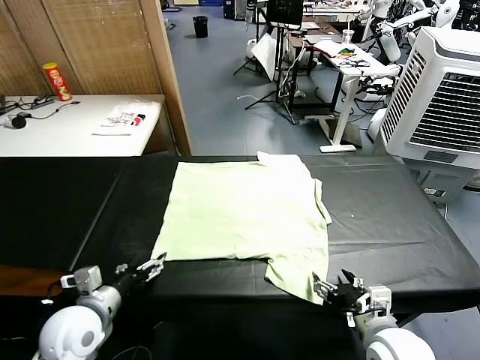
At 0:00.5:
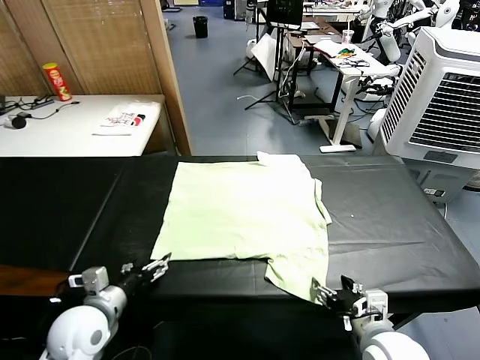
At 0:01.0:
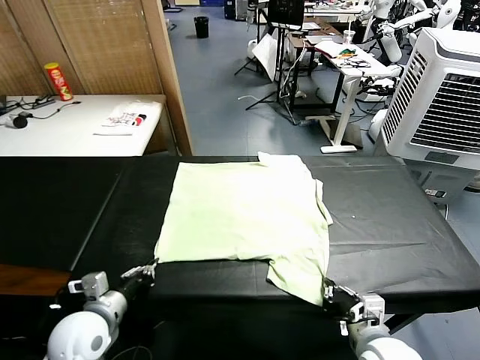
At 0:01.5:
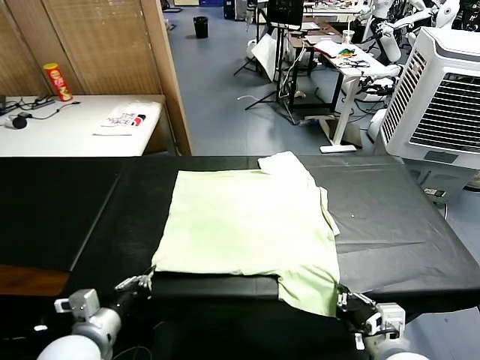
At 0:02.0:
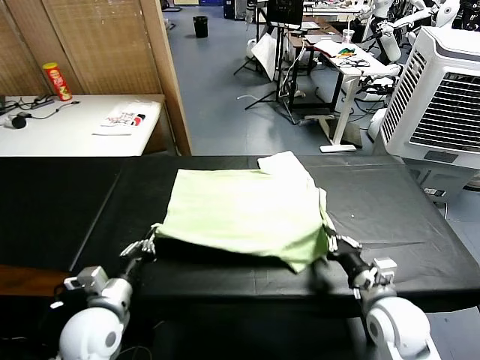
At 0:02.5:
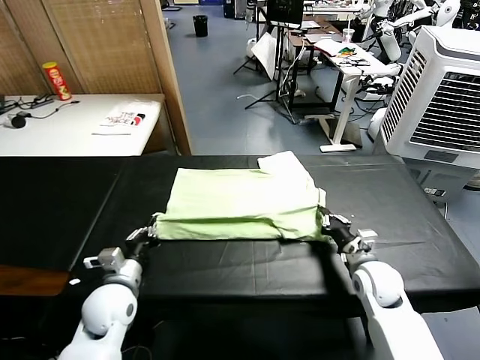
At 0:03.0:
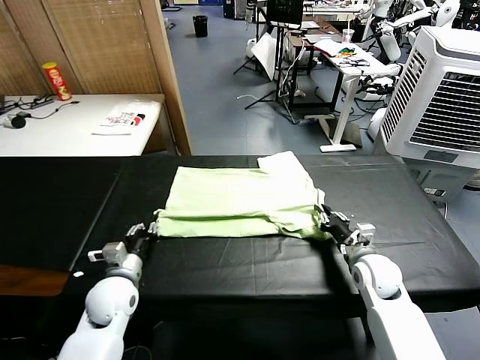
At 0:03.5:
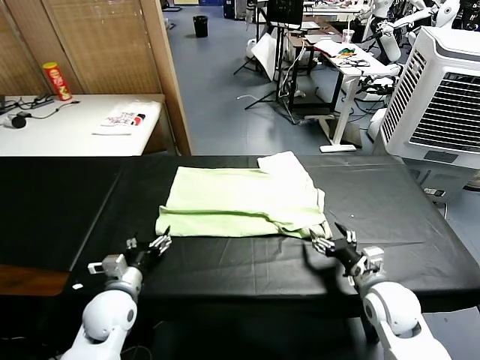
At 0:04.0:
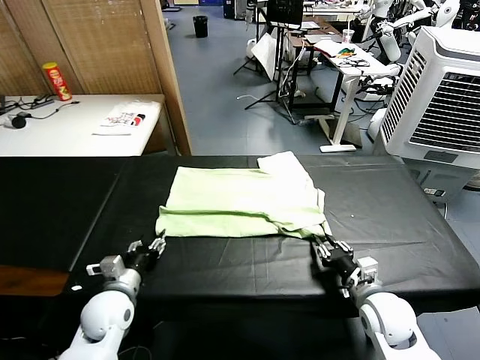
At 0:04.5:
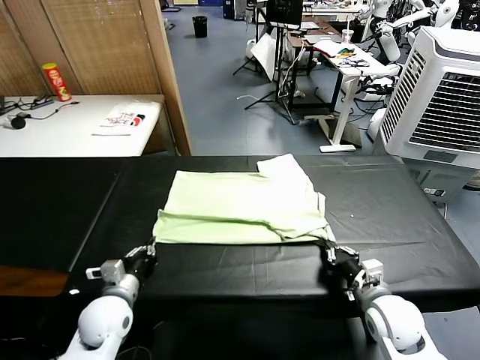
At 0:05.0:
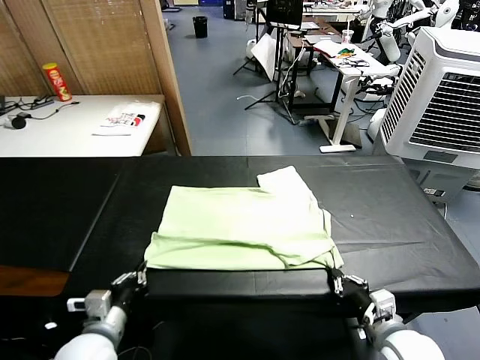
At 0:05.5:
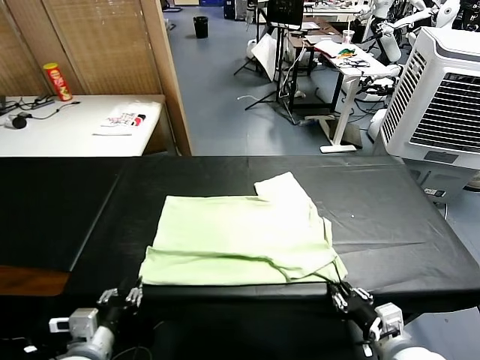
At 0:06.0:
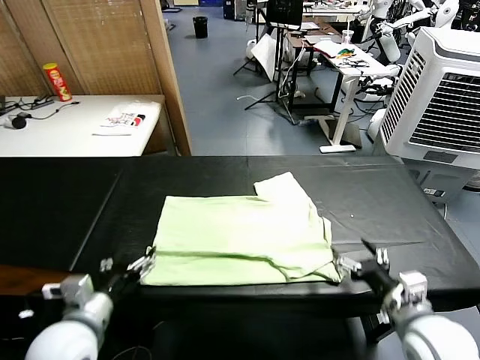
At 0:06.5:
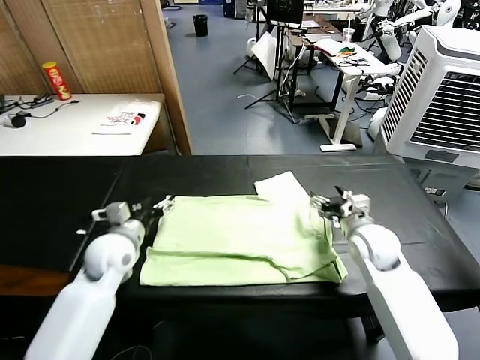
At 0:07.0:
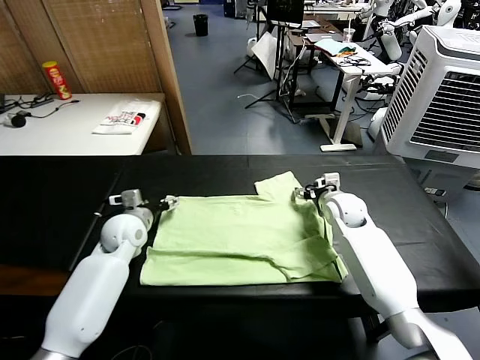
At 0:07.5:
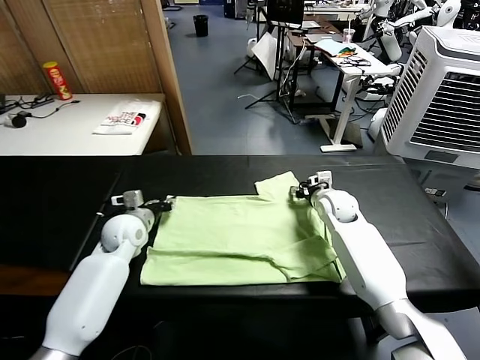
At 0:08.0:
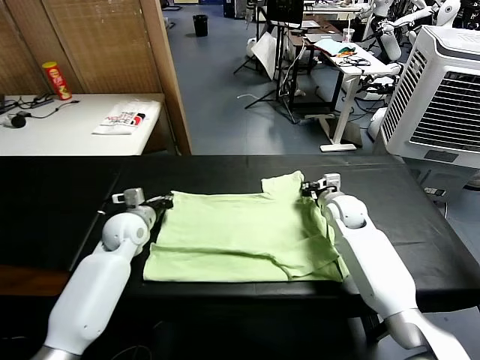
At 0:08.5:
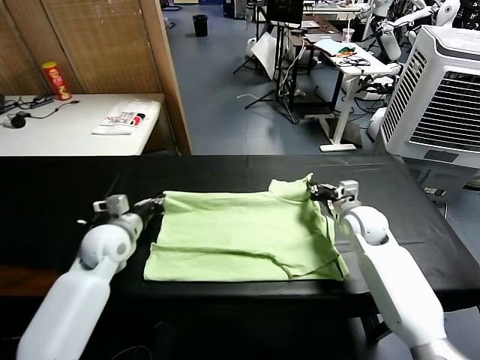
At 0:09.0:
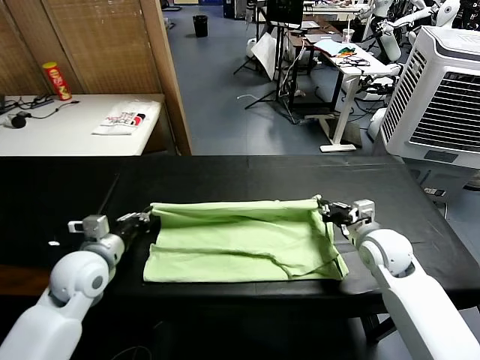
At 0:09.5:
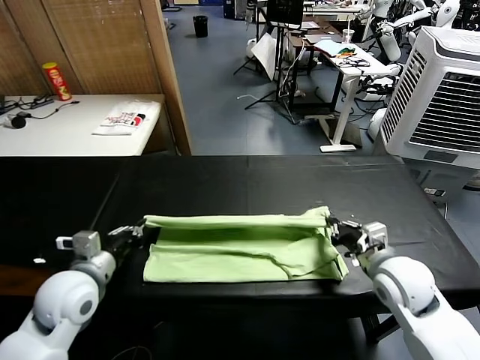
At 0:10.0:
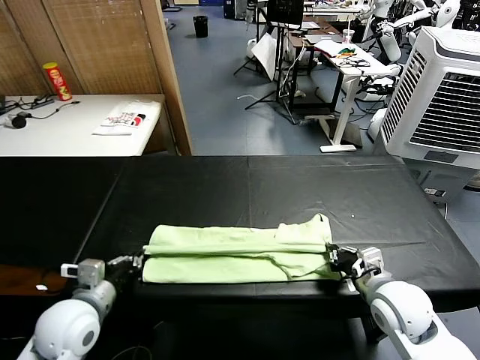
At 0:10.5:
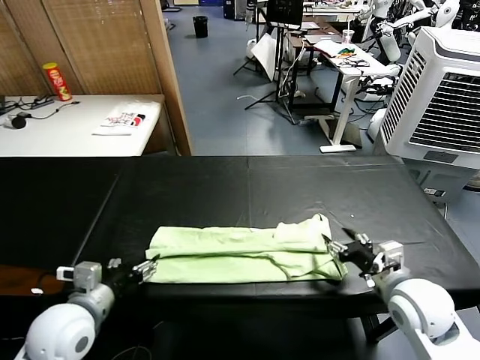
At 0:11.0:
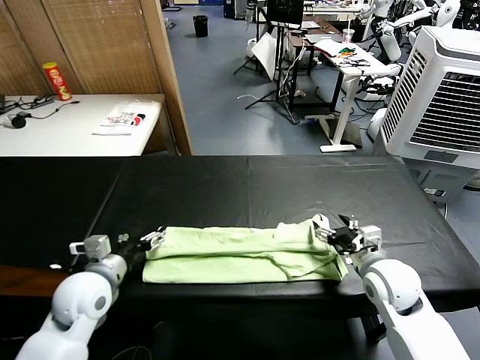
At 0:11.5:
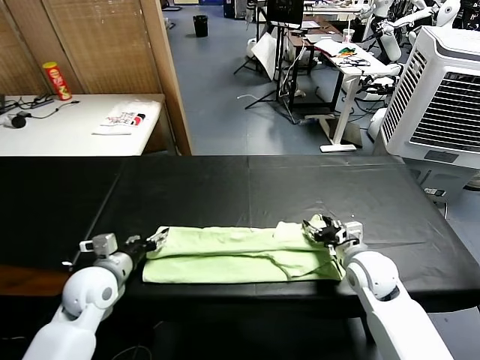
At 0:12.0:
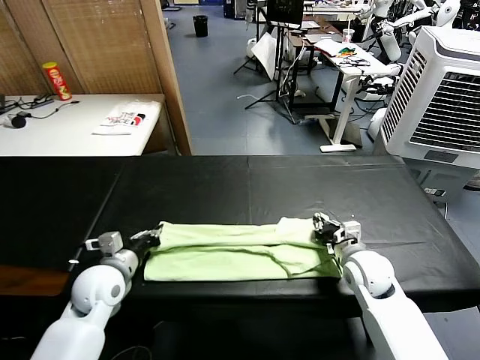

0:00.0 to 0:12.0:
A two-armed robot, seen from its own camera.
Task of the whole recording: fold and organize the clothes.
Step, 0:00.0 to 0:01.0: use both grippers simultaneously to clamp the lower edge of the clothing fabric.
Step, 0:01.5 to 0:03.0: use both grippers to drag the lower edge of the fabric forward and fold it over the upper edge.
Step, 0:03.5 to 0:05.5: Drag the clothes downward with both gripper.
Step, 0:06.0 to 0:07.5: use both grippers simultaneously to clamp the upper edge of the clothing fabric.
Step, 0:08.0 to 0:10.5: use both grippers to drag the upper edge of the fabric backward and fold it over the lower edge.
0:02.0 to 0:04.0: The right gripper opens, then closes again, while the left gripper is displaced downward by about 5 cm, and opens, then closes once more.
0:04.0 to 0:06.0: The two grippers go roughly 10 cm upward. The left gripper travels backward and back again, about 15 cm each way, and opens up. Meanwhile the right gripper moves approximately 10 cm backward and comes back, and opens.
0:06.0 to 0:08.0: The two grippers go about 20 cm forward. The left gripper closes up; the right gripper closes.
0:08.0 to 0:10.0: Both grippers move backward, roughly 25 cm.
0:10.0 to 0:12.0: Both grippers move forward, some 10 cm. The right gripper opens and closes again. The left gripper opens and closes again.

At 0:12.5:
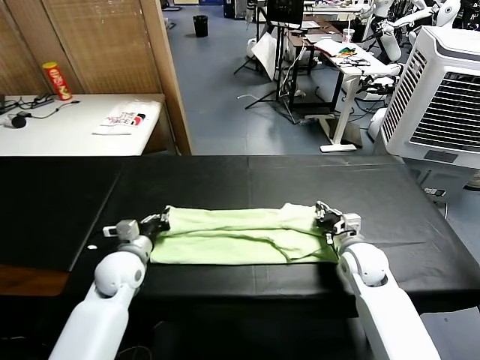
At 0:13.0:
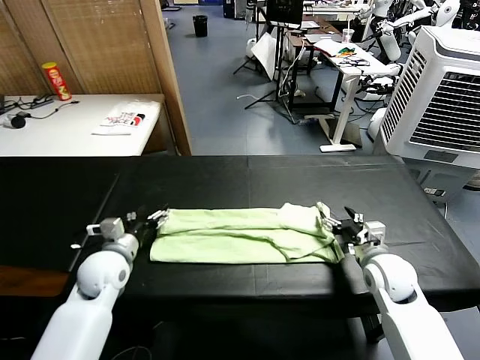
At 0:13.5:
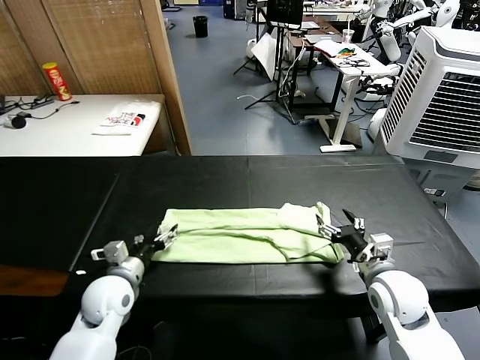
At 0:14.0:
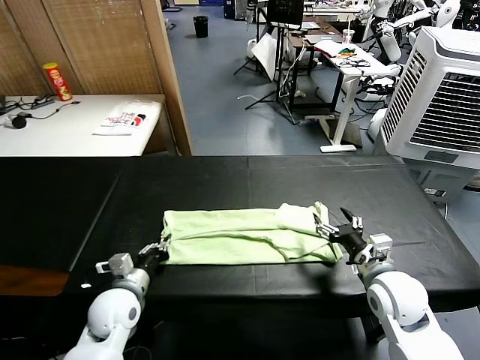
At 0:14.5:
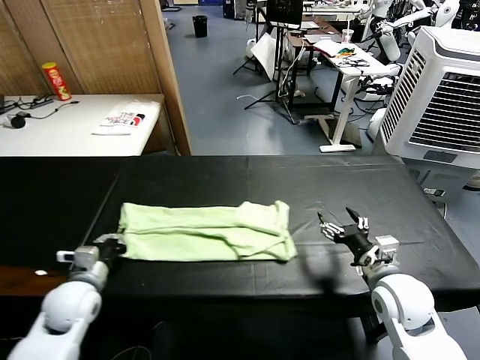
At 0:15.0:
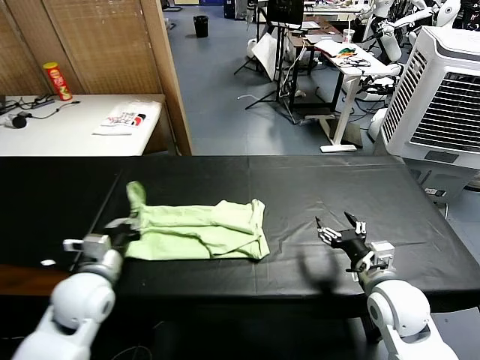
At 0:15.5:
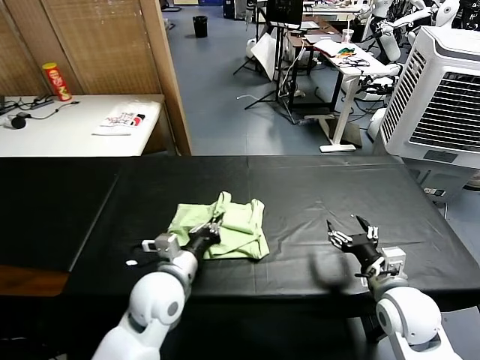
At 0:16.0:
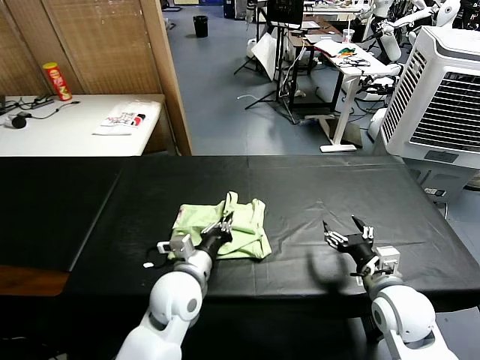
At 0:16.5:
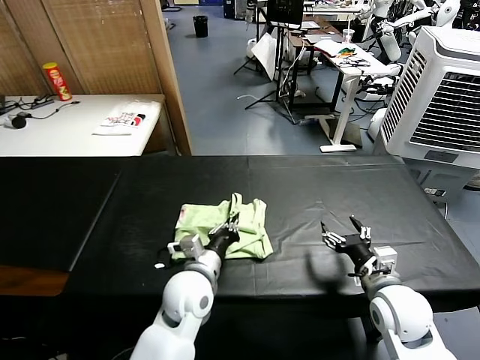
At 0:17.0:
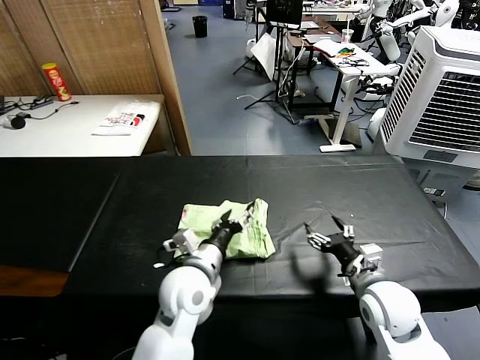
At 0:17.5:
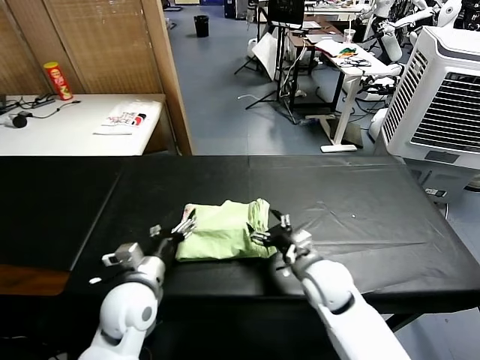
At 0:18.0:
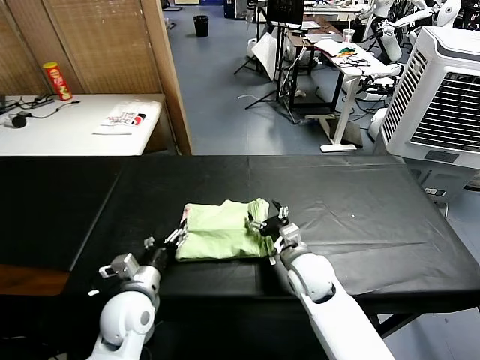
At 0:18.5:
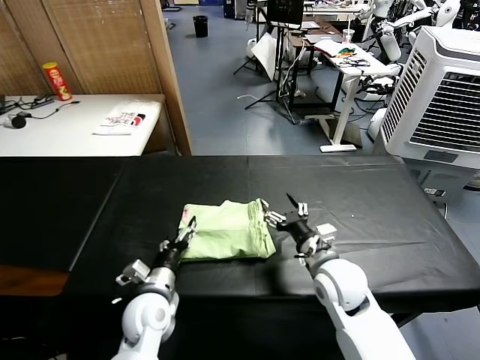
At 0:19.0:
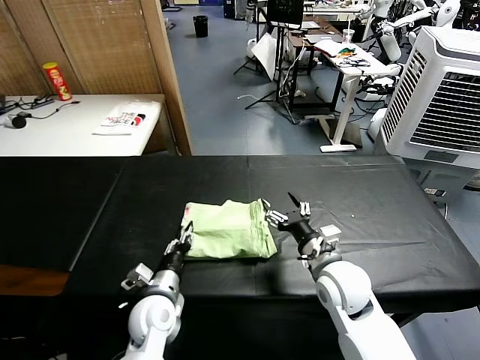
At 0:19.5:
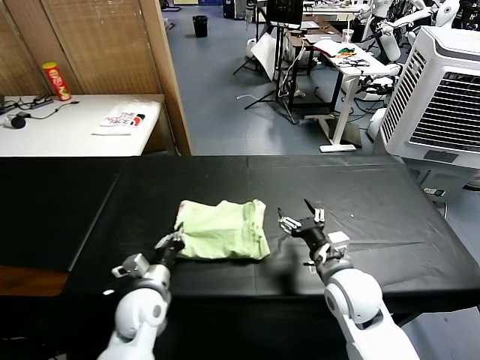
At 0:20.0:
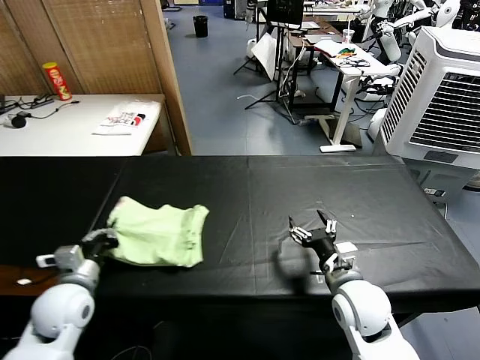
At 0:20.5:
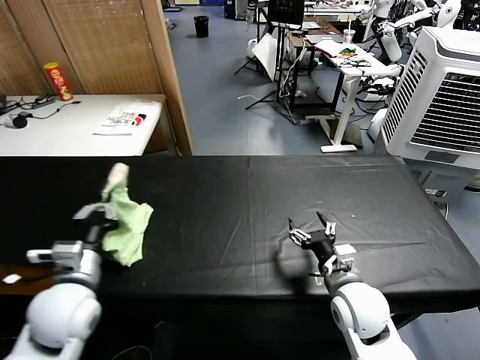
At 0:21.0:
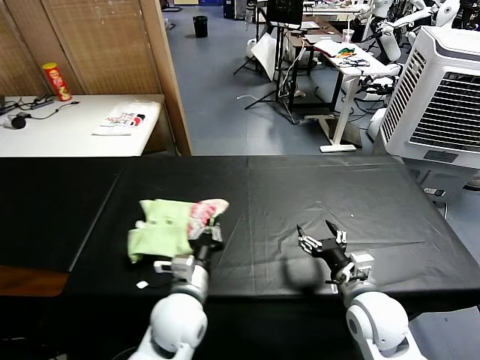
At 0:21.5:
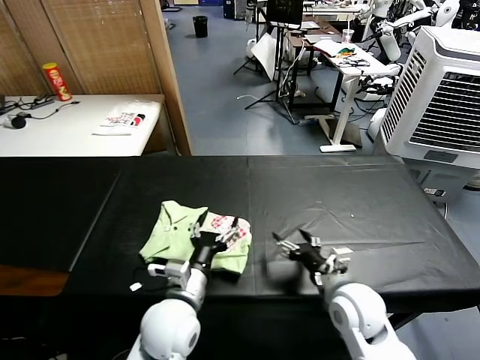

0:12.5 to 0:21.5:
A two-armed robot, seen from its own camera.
Task of the whole recording: fold and organize the clothes.
Step, 0:14.5 to 0:16.5: use the left gripper to drag the left edge of the fabric to the left and folds it over the right edge.
Step, 0:17.0 to 0:21.0: Flip the folded clothes over with left gripper.
0:12.5 to 0:14.5: The left gripper travels to the left and backward by roughly 10 cm, and opens, then closes once more, while the right gripper goes approximately 10 cm backward and upward, and opens.
0:14.5 to 0:17.0: The left gripper travels to the right by approximately 25 cm, and opens up.
0:17.0 to 0:19.5: The left gripper moves to the left and downward, roughly 15 cm, and closes its fingers; the right gripper travels to the left by approximately 5 cm.
0:19.5 to 0:21.5: The left gripper travels to the right and upward by some 10 cm, and opens.

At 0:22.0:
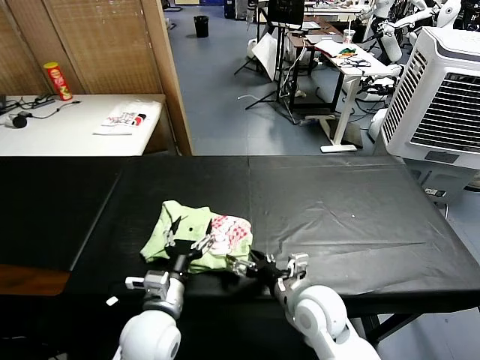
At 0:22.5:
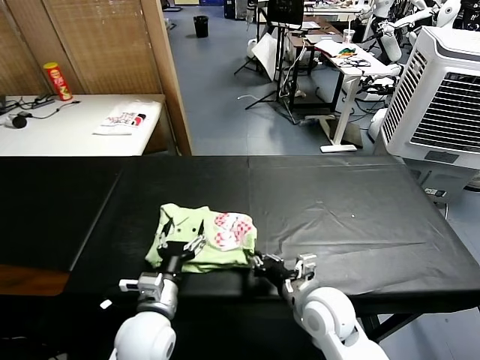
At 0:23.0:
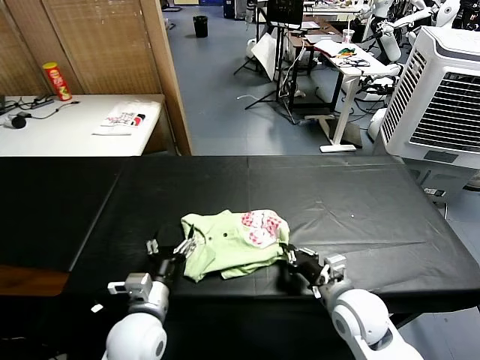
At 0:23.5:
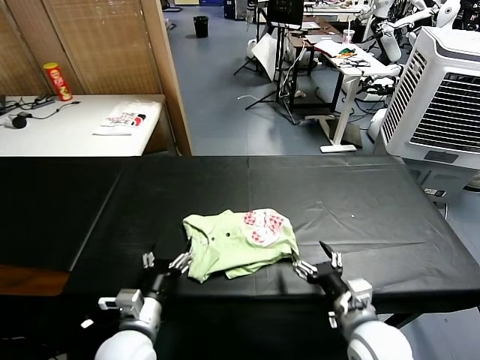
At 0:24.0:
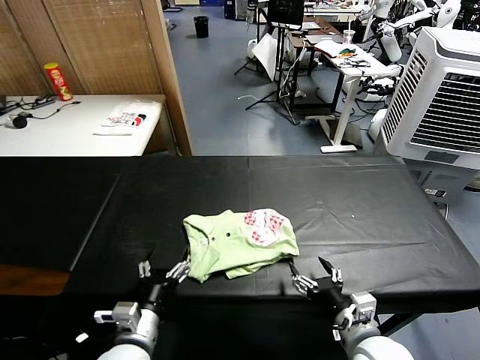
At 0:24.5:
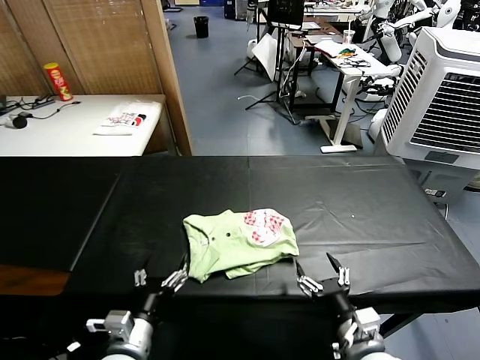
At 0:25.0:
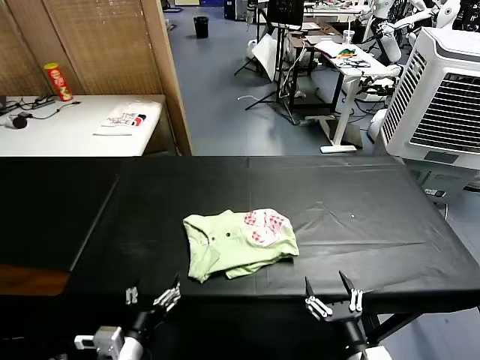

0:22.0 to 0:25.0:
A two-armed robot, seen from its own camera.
Task of the whole recording: fold and organize the clothes.
Step, 0:22.0 to 0:23.0: Drag the clothes to the center of the table.
0:22.0 to 0:23.5: The left gripper ends up roughly 5 cm from where it was; the right gripper moves to the right and backward, about 10 cm, and closes and opens again.
0:23.5 to 0:25.0: The two grippers go about 10 cm backward.
